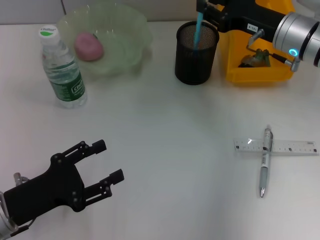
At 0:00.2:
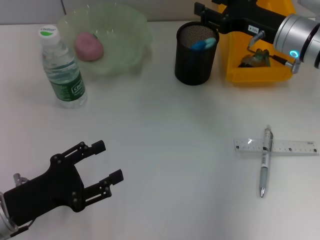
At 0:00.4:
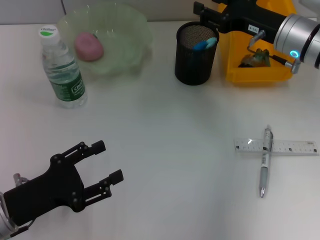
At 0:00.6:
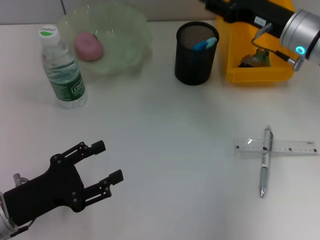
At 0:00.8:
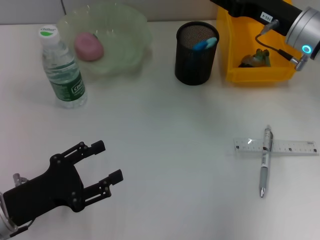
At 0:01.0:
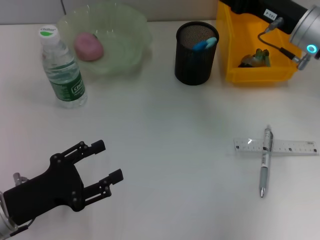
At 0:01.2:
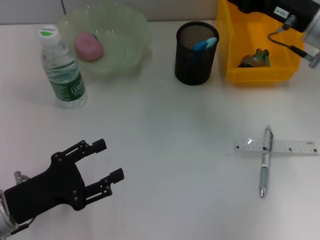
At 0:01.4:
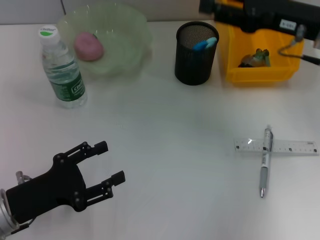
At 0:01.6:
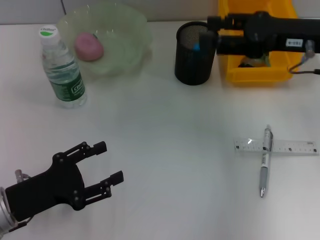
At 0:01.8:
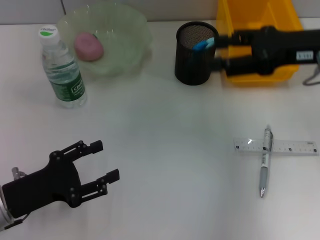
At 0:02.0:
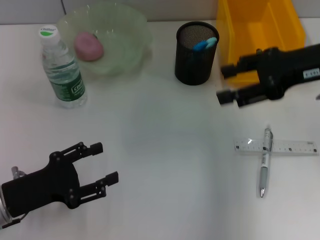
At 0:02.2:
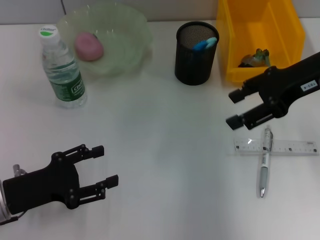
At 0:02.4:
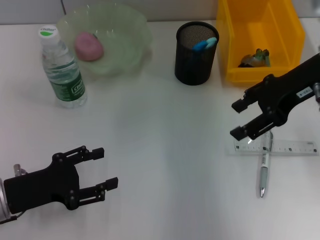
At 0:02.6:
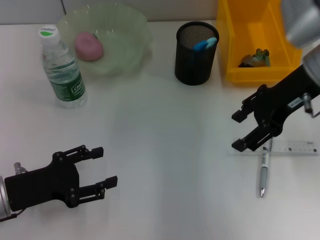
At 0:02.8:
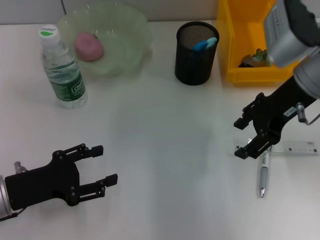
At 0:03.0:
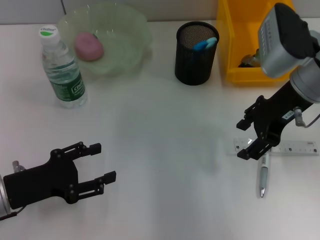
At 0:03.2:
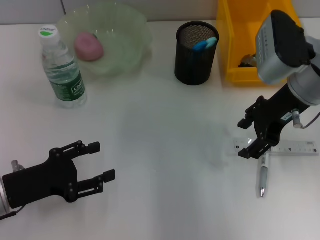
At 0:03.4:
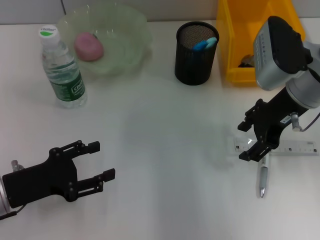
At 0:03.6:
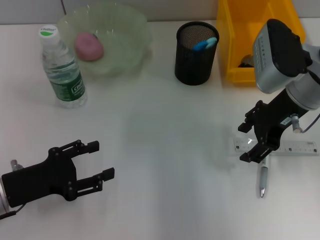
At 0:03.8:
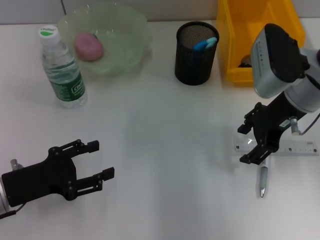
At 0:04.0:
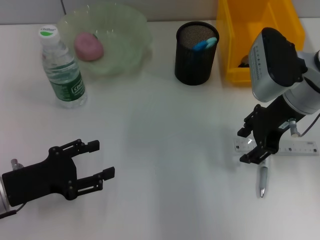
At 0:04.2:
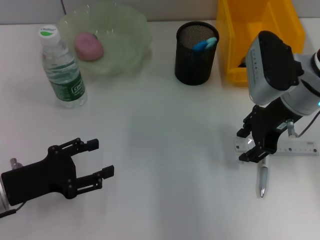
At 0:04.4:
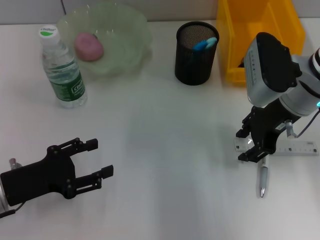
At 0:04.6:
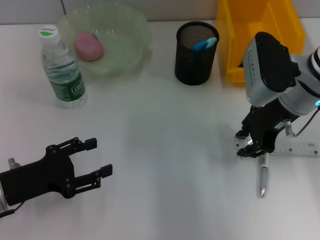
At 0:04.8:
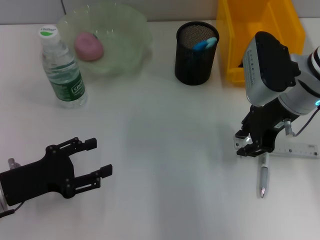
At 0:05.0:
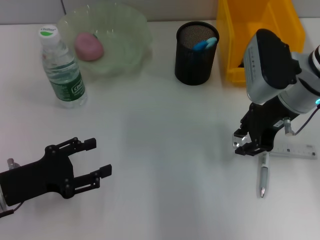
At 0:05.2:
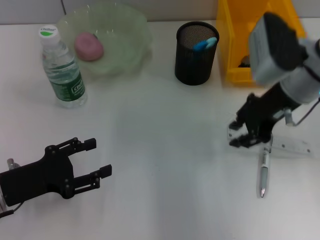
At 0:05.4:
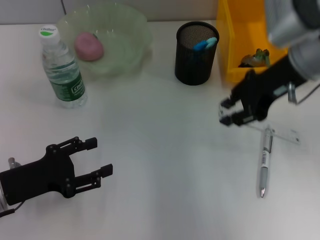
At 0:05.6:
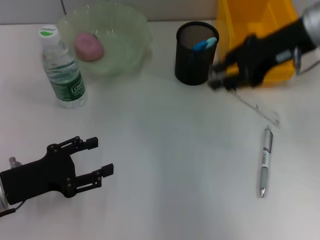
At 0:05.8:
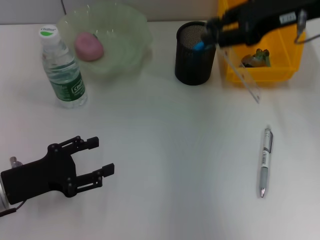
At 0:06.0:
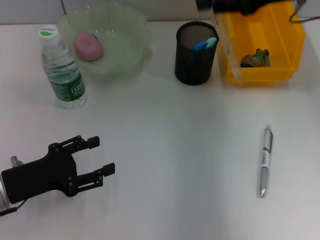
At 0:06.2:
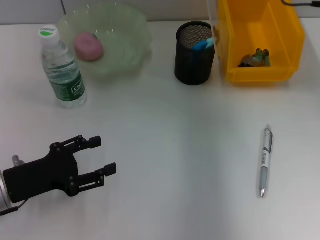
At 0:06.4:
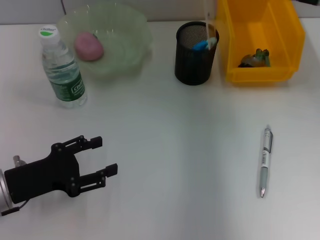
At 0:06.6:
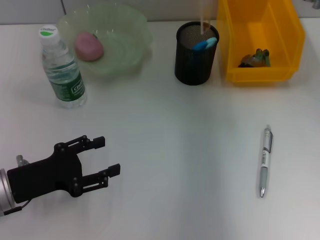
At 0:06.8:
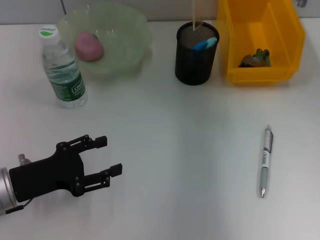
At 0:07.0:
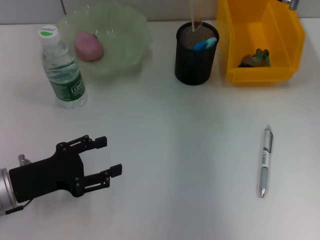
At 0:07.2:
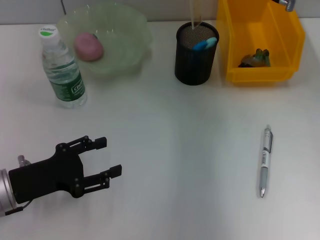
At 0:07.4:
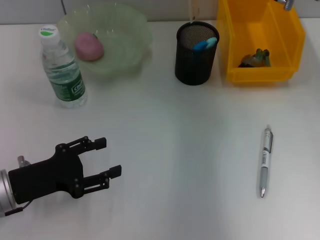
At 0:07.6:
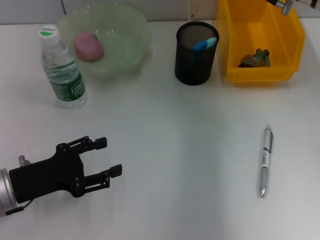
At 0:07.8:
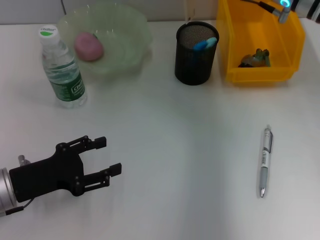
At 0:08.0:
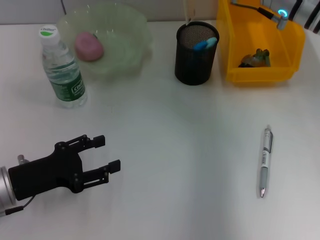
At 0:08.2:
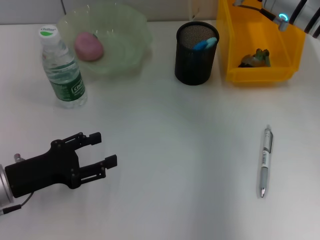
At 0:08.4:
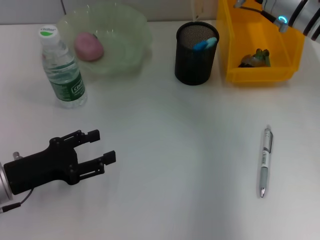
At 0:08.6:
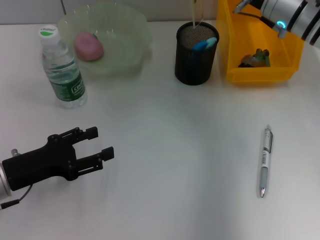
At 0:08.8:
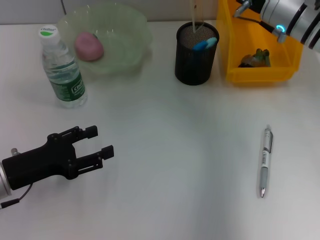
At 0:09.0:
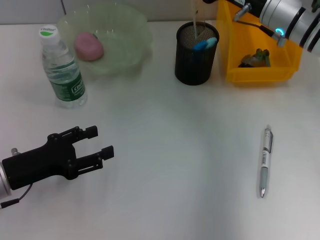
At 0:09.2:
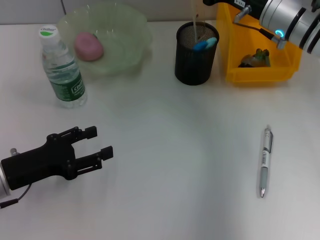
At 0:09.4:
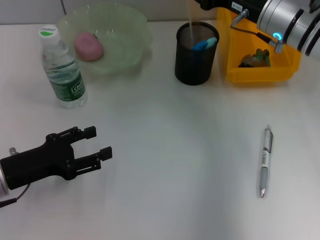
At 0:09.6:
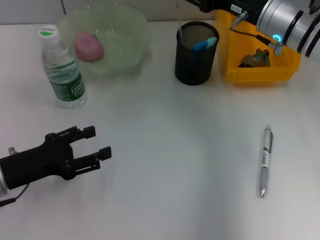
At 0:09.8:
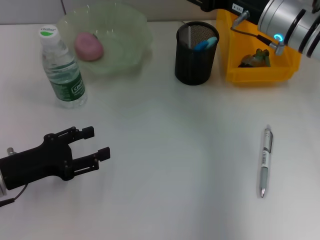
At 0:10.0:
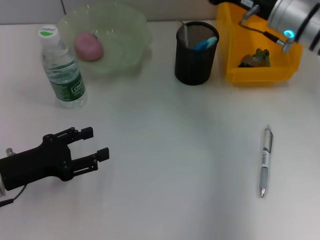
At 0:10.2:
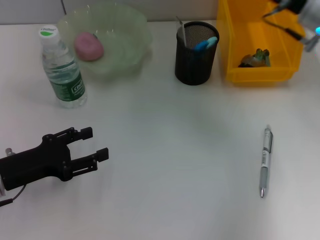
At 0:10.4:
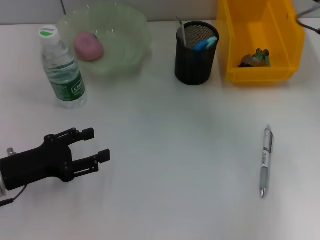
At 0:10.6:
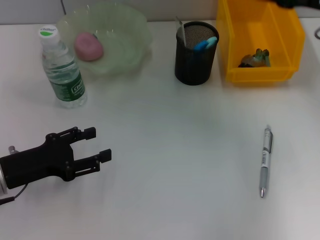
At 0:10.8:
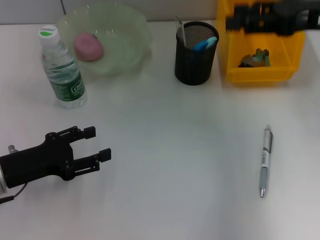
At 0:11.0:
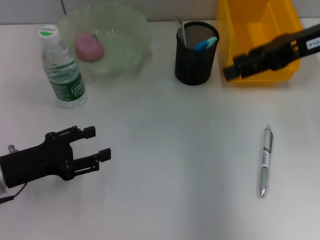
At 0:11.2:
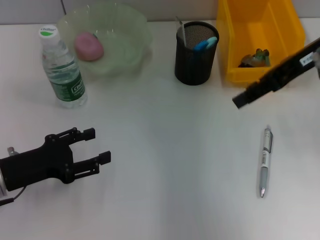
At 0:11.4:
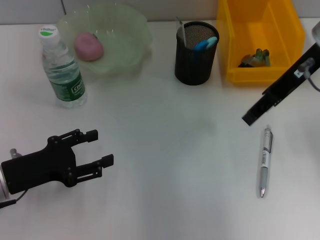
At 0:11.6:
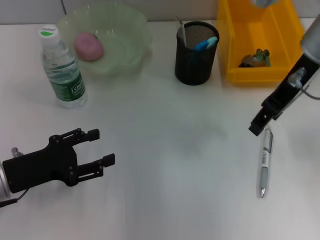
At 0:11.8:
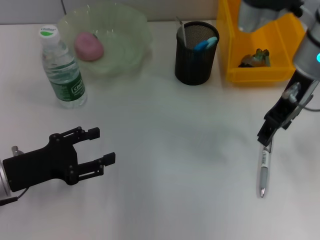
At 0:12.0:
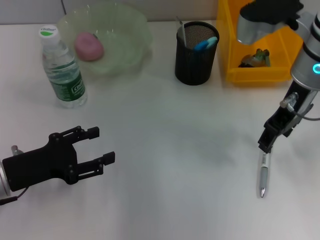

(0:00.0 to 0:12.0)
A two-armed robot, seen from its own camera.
Step, 0:00.6 - 0:05.2: Grab the ruler with the right hand.
Step, 0:05.4 - 0:10.0: Place the ruler into the pen holder with the right hand.
0:00.0 - 0:01.6: The right gripper travels upward and backward by approximately 10 cm.
0:01.6 - 0:03.0: The right gripper shifts by about 5 cm.
0:03.0 - 0:04.4: The grippers stay close to where they were, moving slightly.
0:04.4 - 0:06.0: The right gripper goes roughly 10 cm upward.
0:06.0 - 0:07.6: The right gripper moves downward, approximately 5 cm.
0:07.6 - 0:09.0: The right gripper changes place by some 5 cm.
0:09.0 - 0:10.4: The right gripper travels to the right by about 10 cm, and opens up.
0:10.4 - 0:12.0: The right gripper shifts roughly 10 cm to the left.

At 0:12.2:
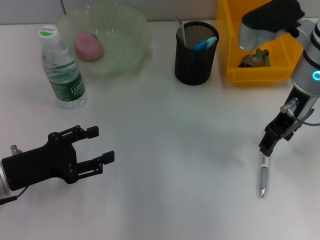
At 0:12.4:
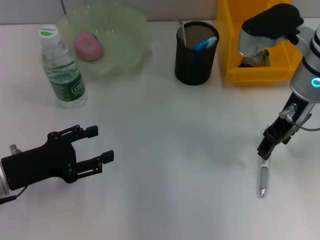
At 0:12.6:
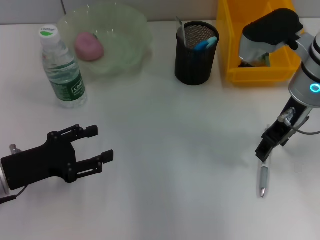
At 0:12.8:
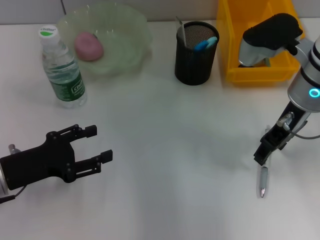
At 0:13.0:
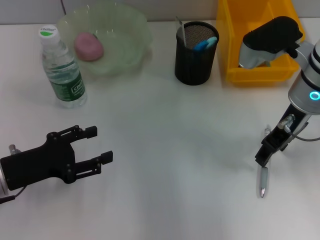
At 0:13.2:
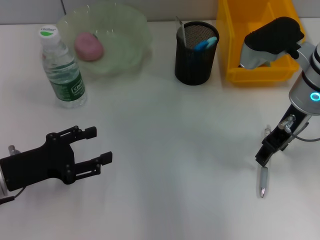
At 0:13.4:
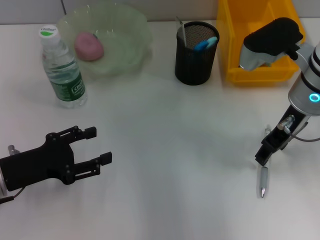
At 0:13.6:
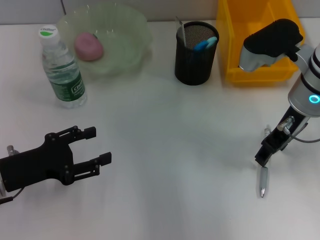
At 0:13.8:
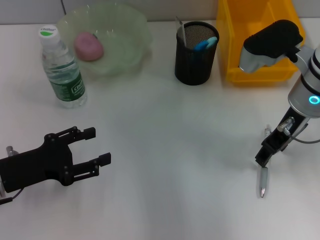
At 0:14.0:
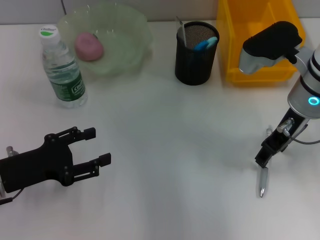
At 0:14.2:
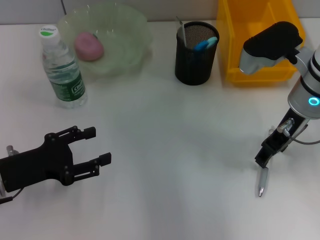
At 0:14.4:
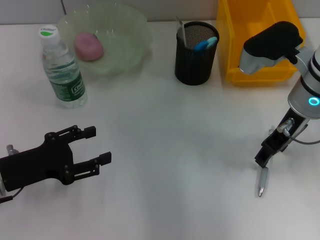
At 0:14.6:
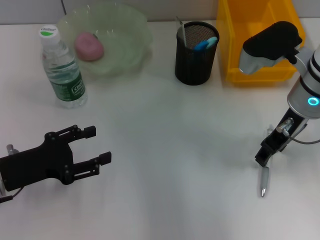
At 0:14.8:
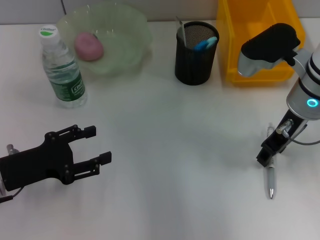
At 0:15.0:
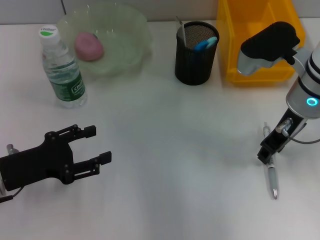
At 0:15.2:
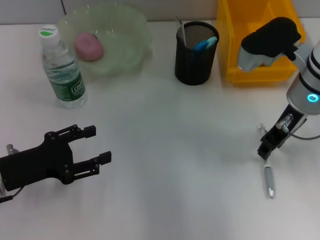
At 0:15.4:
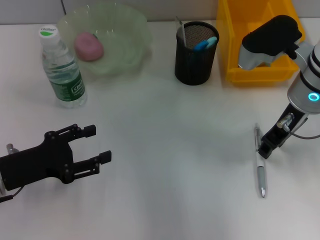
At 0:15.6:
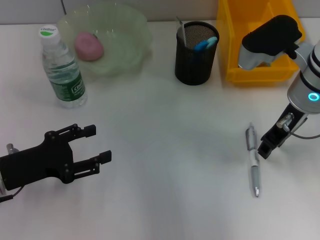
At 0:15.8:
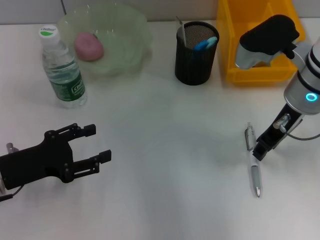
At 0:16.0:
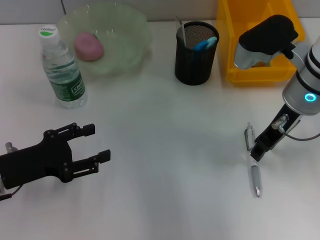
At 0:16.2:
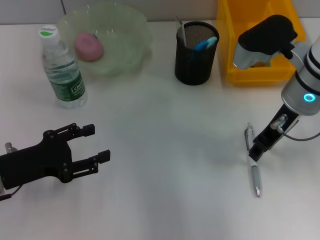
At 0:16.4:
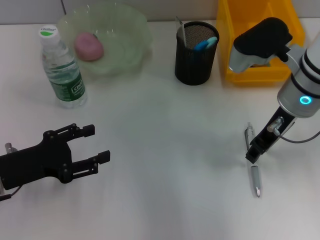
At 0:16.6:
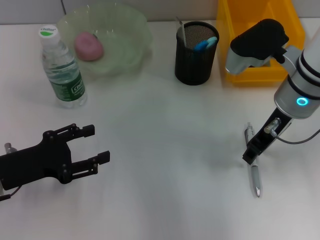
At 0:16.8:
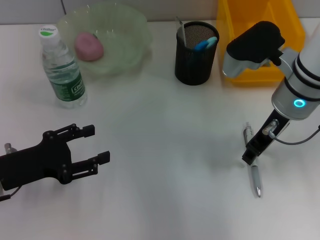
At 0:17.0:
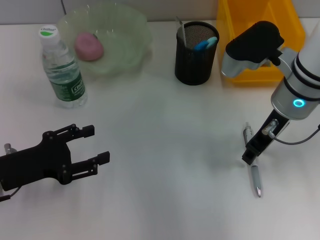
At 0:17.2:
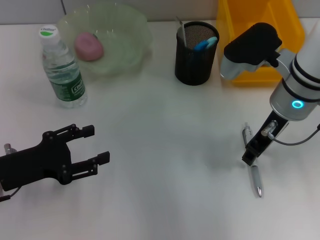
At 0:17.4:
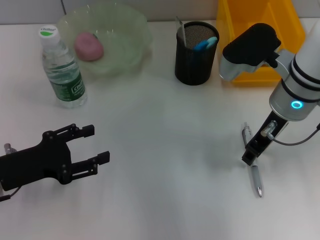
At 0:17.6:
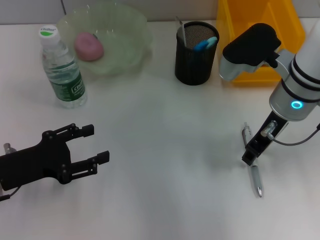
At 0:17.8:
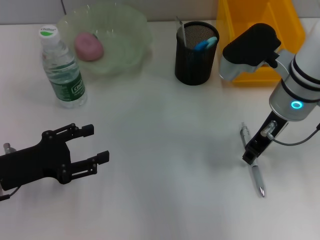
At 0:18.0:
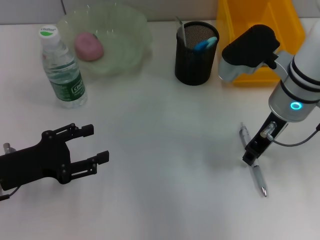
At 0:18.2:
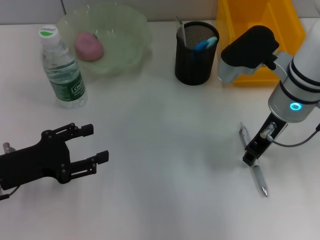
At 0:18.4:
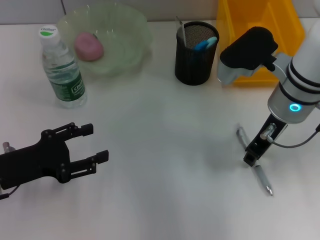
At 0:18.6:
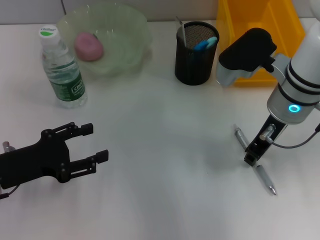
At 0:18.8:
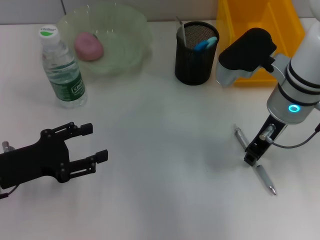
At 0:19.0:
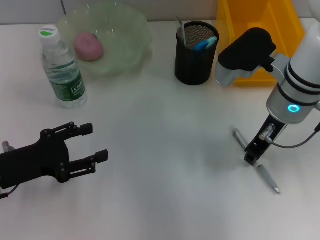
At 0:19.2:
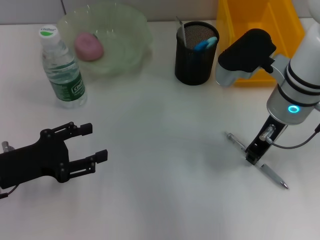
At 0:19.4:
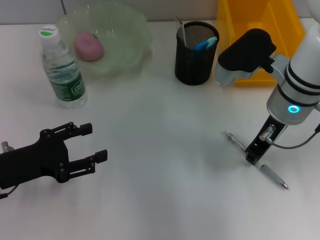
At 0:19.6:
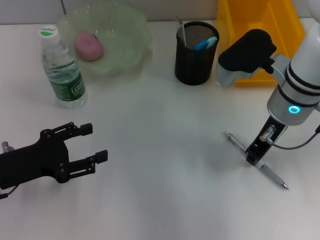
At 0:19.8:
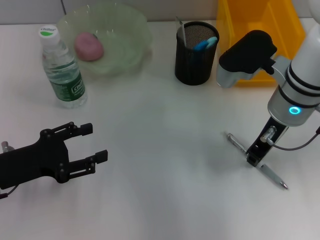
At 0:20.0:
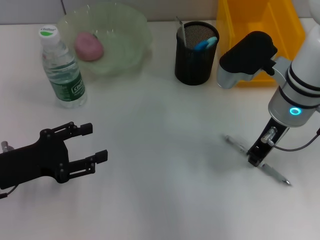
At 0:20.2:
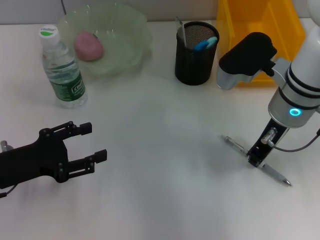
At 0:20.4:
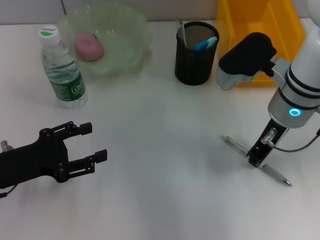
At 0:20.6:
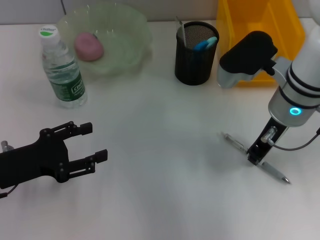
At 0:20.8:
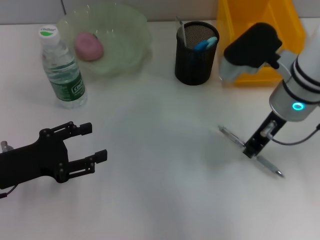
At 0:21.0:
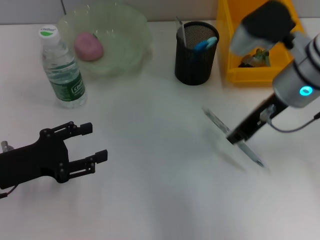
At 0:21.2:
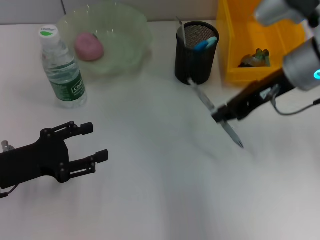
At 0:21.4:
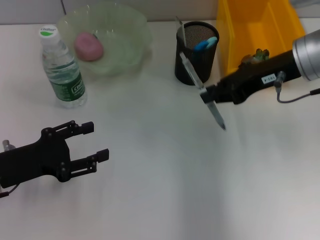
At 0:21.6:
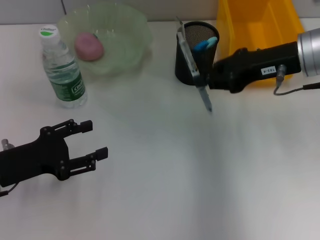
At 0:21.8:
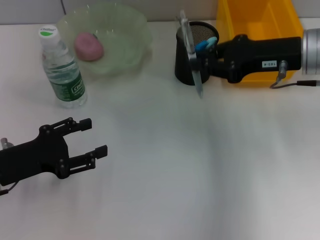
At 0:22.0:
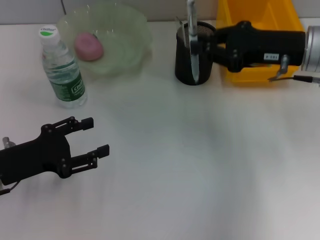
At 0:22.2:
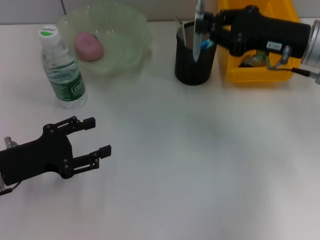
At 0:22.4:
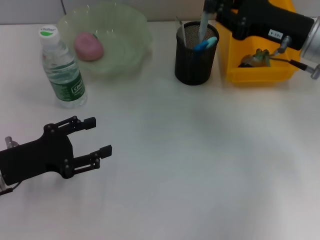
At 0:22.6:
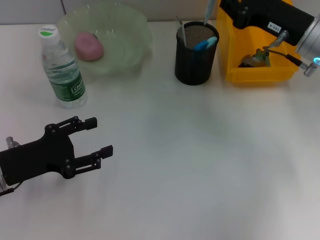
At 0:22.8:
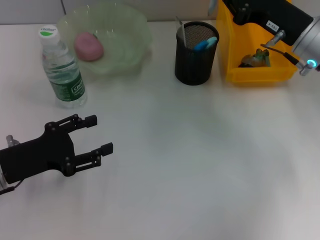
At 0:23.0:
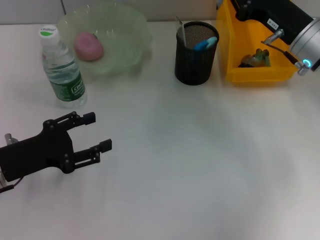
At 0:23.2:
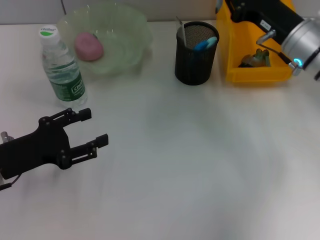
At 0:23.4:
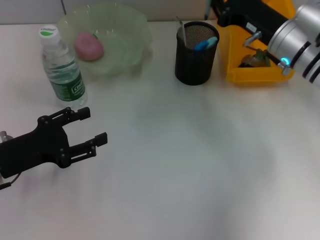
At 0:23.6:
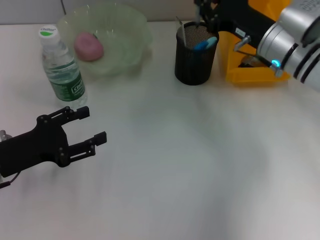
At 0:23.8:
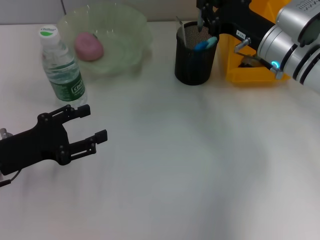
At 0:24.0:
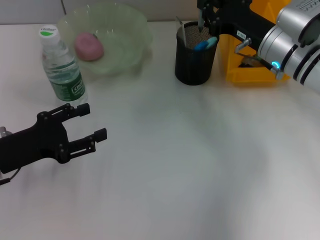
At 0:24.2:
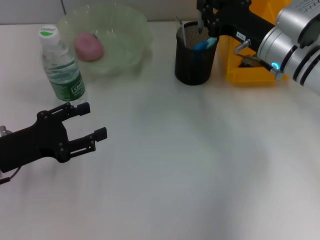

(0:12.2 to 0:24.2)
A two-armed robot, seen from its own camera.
Step, 0:12.2 - 0:20.6: Grab the gray spring-action pen with the right hand.
0:12.2 - 0:13.8: The grippers move only a little.
0:13.8 - 0:15.2: Both grippers stay put.
0:15.2 - 0:16.6: The grippers stay close to where they were, moving slightly.
0:16.6 - 0:18.2: Both grippers stay about where they are.
0:18.2 - 0:19.8: Both grippers stay put.
0:19.8 - 0:21.2: The right gripper ends up roughly 5 cm from where it was.
0:21.2 - 0:22.6: The right gripper ends up approximately 5 cm from where it was.
0:22.6 - 0:24.2: The right gripper ends up about 5 cm from where it was.
